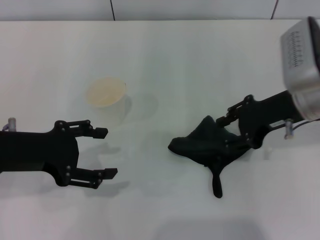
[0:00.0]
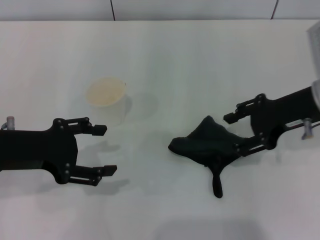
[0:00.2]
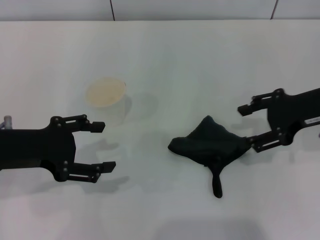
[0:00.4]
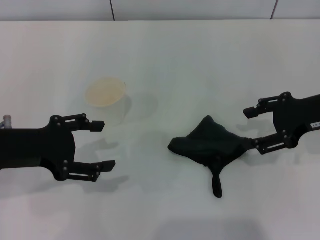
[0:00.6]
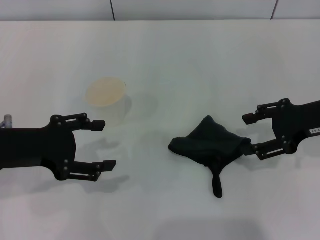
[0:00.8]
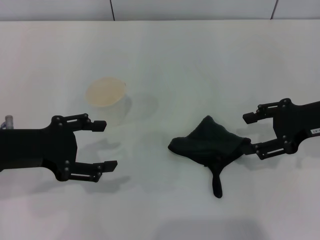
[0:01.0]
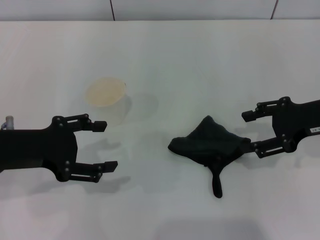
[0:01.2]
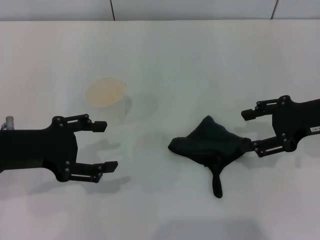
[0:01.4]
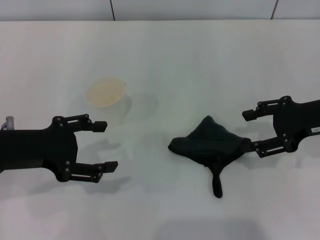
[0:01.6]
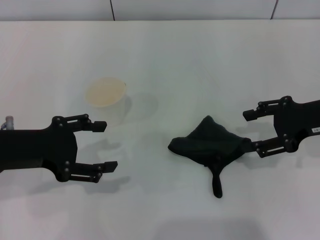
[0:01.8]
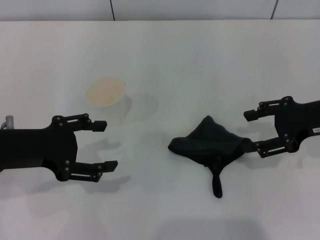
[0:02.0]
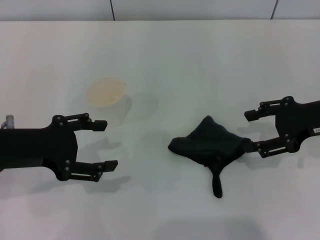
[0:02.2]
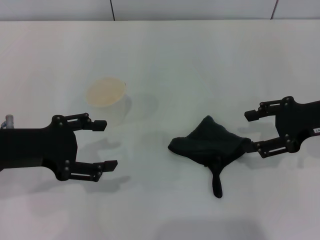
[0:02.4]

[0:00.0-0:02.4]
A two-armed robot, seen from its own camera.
0:00.0 to 0:01.2: The right gripper moves to the right, roughly 5 cm, and opens.
0:01.2 to 0:02.4: The two grippers keep their place.
